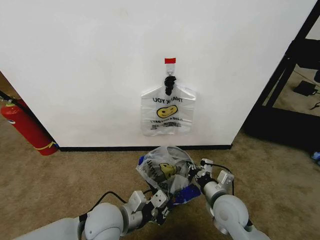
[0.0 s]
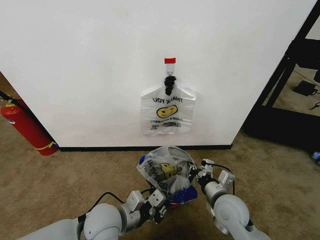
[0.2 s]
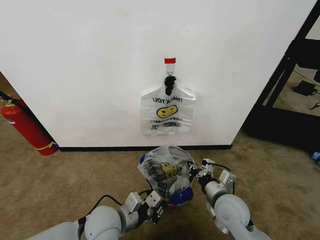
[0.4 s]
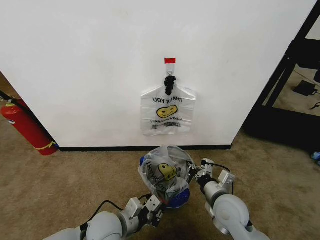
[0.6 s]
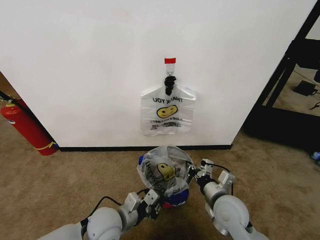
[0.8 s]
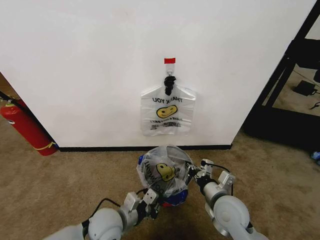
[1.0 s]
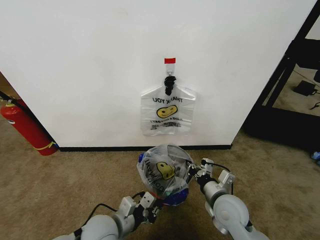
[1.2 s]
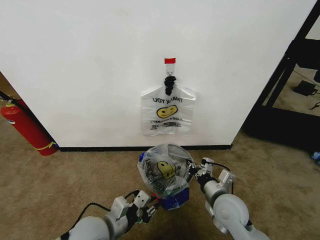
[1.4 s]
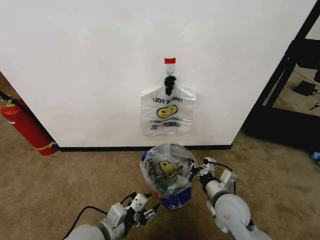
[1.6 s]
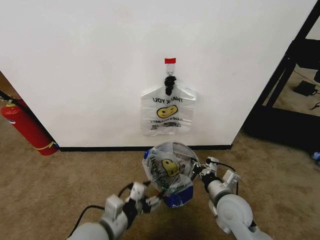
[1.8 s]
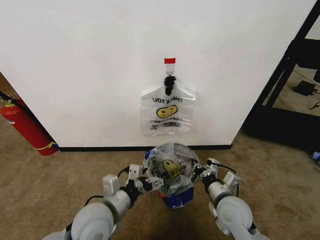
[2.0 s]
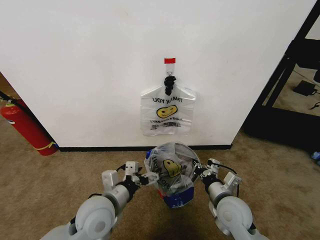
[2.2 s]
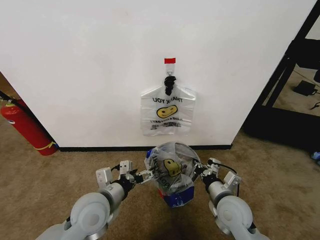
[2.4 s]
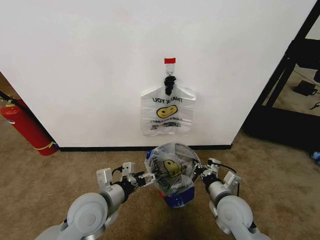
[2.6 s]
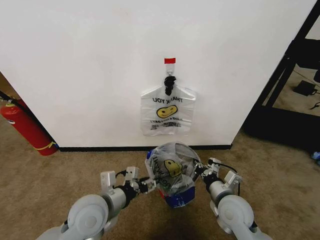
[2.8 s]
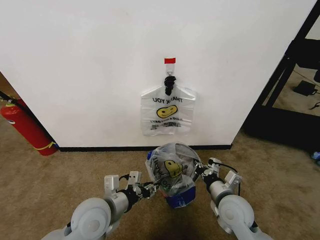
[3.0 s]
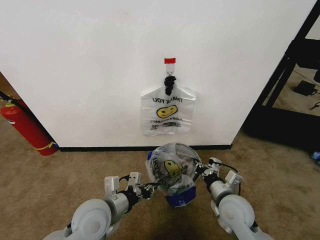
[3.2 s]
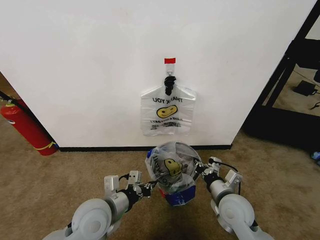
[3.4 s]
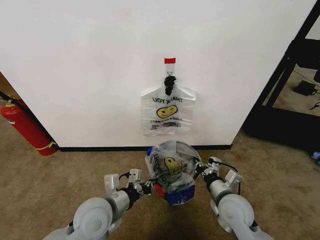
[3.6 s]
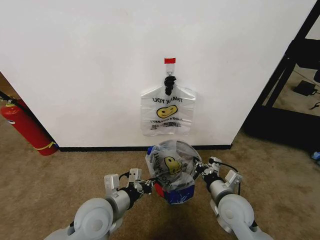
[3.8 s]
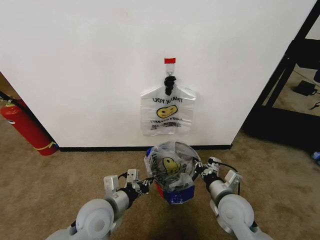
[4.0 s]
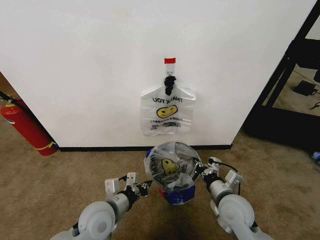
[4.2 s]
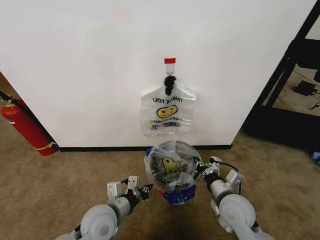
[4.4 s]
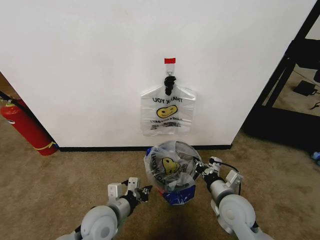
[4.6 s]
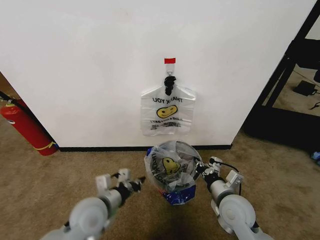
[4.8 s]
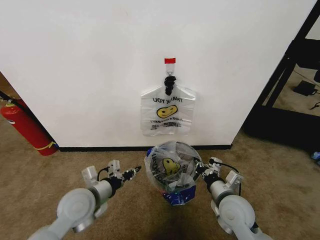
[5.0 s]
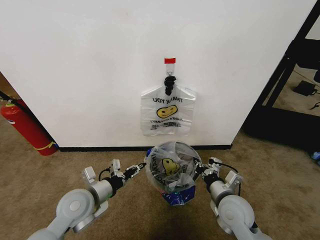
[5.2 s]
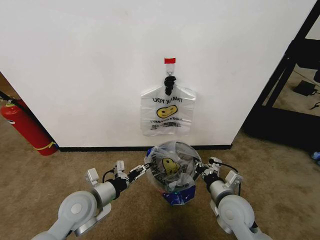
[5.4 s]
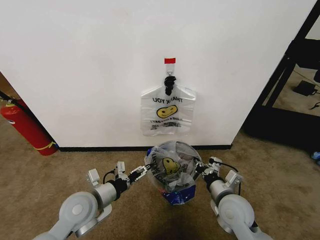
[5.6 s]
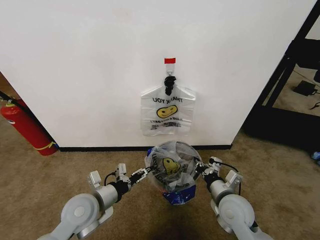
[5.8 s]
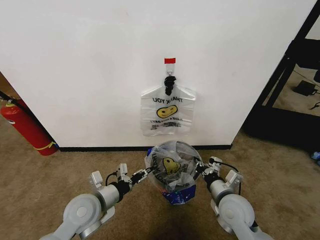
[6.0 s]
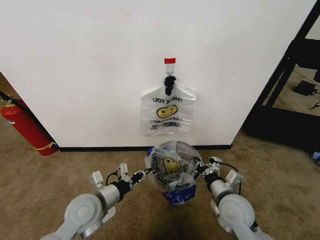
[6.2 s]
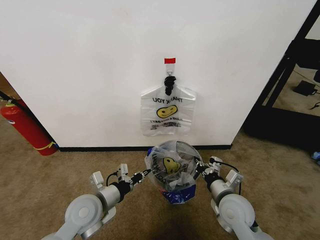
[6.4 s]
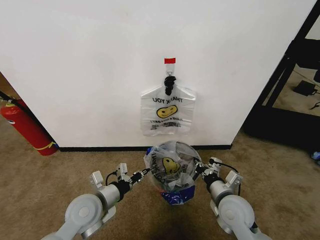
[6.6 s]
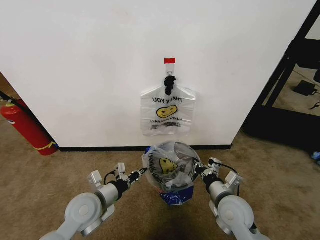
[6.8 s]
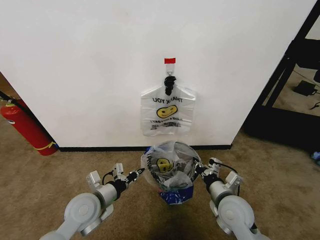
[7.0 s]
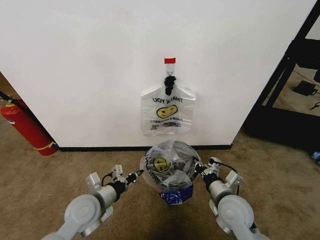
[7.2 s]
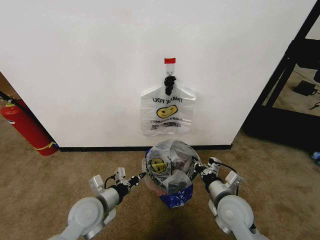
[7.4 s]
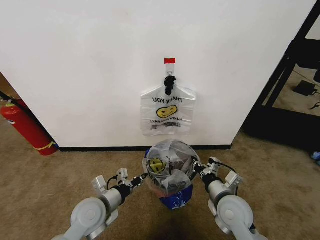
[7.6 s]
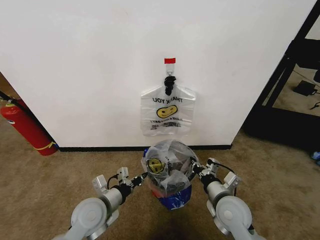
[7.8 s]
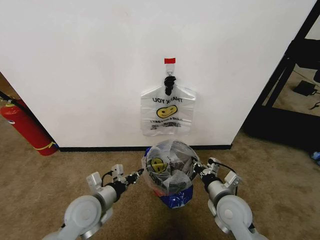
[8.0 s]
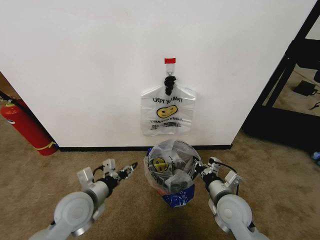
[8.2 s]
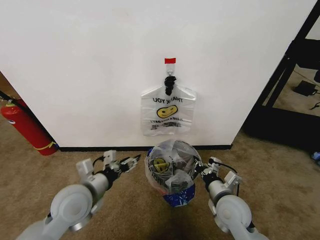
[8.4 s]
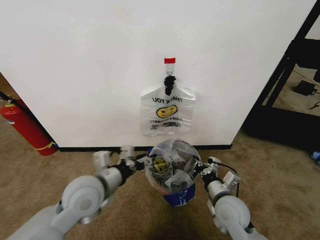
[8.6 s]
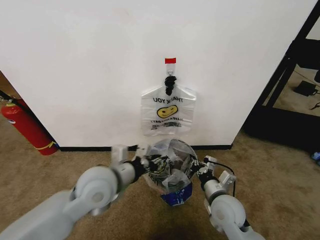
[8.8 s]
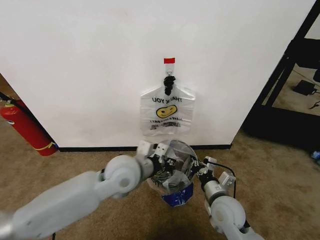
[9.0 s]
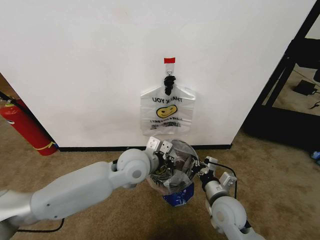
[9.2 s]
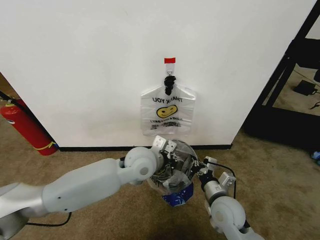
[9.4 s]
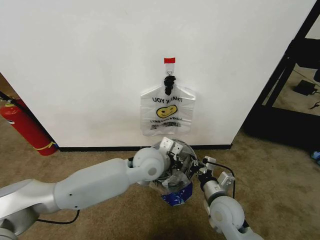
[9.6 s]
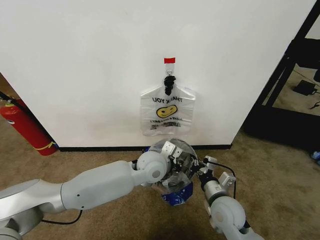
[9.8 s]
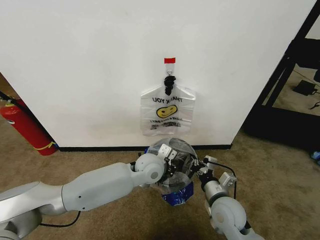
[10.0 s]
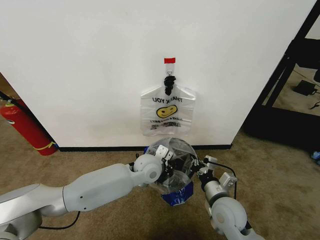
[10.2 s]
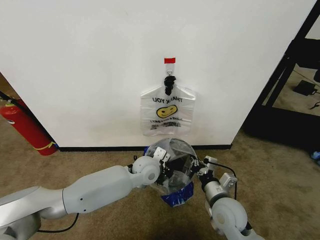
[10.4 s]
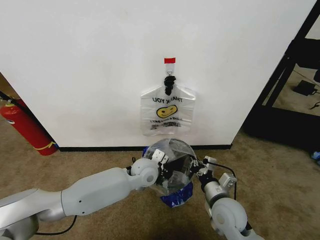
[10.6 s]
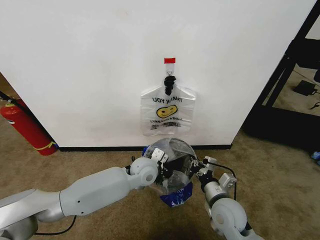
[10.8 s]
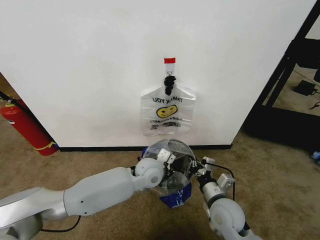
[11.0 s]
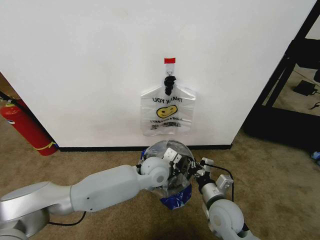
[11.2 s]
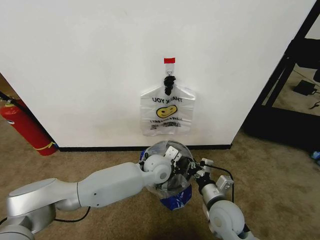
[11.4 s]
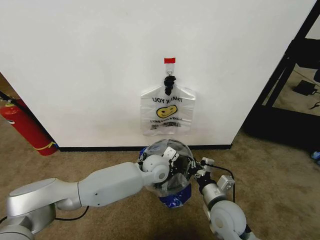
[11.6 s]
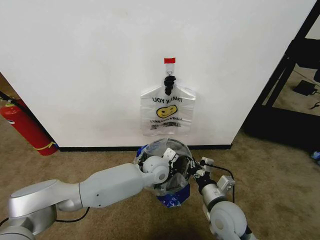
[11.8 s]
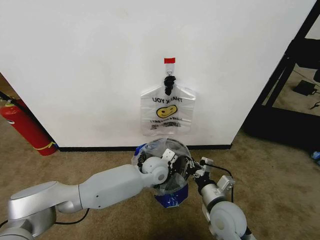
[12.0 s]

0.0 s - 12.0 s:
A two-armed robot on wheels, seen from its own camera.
Task of the whole recording: Pick up the garbage bag from the wall and place it over the trash bin.
0.0 s - 1.6 s: The left gripper is displaced backward by roughly 5 cm, and opens its fingers.
1.6 s - 3.0 s: The left gripper moves forward, about 5 cm, and opens, then closes once more.
3.0 s - 4.4 s: The left gripper moves downward, roughly 5 cm, and closes its fingers.
4.4 s - 6.0 s: The left gripper shifts by approximately 5 cm, and opens up.
6.0 s - 7.6 s: The left gripper closes its fingers.
7.6 s - 9.0 s: The left gripper is displaced upward, to the right and forward by roughly 15 cm, and opens, then closes once more.
9.0 s - 10.4 s: The left gripper heads downward, forward and to the right, covering approximately 15 cm.
10.4 s - 12.0 s: The grippers make only small movements.

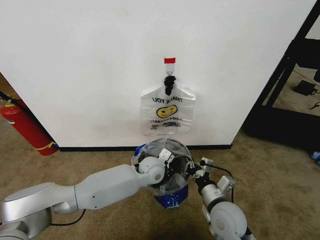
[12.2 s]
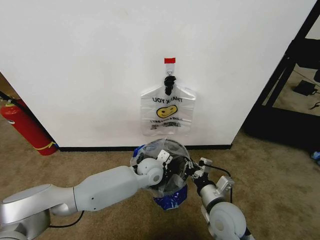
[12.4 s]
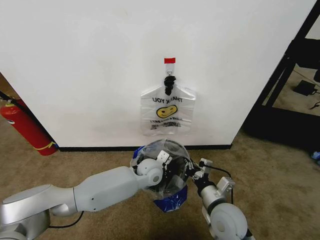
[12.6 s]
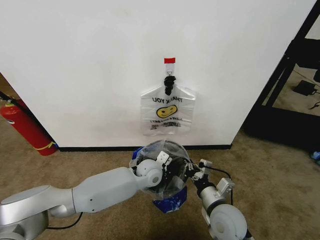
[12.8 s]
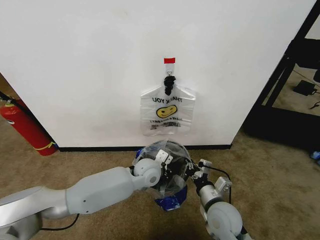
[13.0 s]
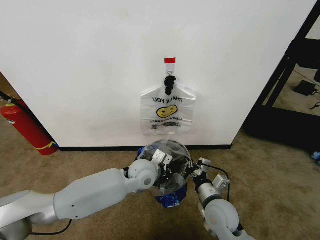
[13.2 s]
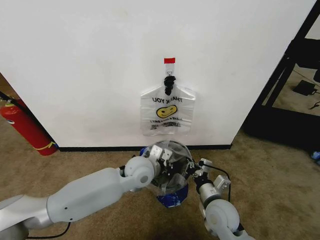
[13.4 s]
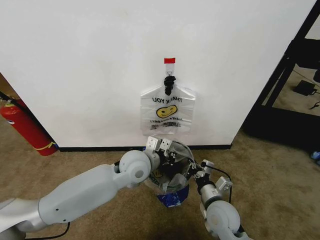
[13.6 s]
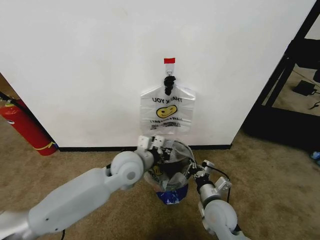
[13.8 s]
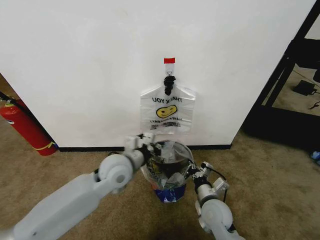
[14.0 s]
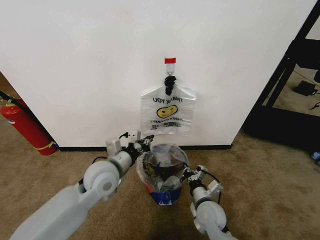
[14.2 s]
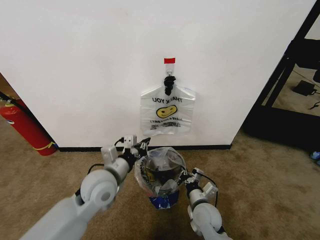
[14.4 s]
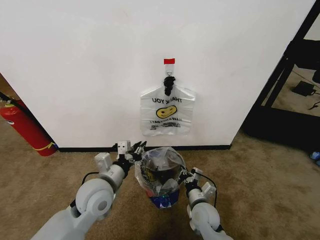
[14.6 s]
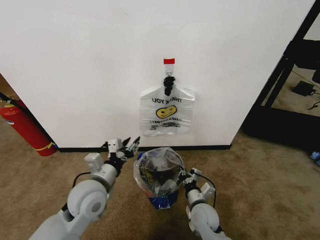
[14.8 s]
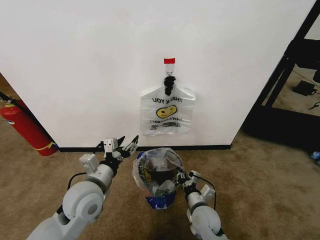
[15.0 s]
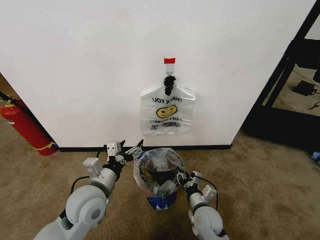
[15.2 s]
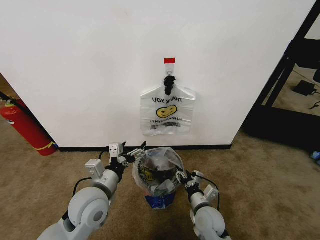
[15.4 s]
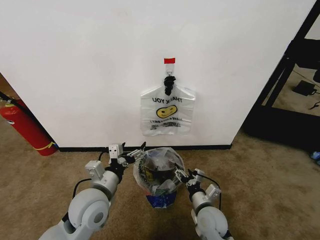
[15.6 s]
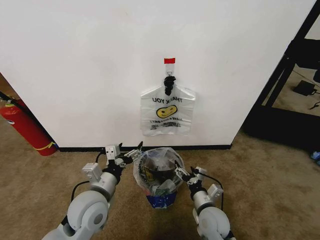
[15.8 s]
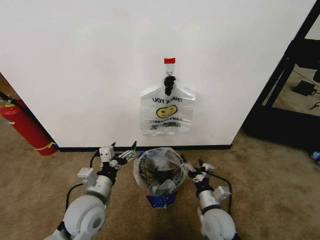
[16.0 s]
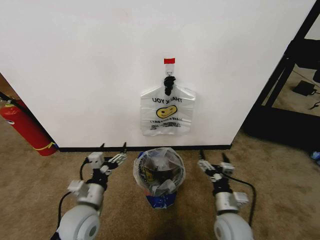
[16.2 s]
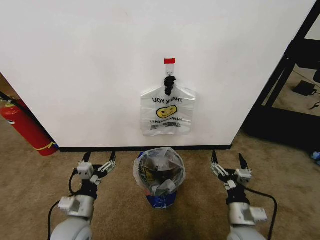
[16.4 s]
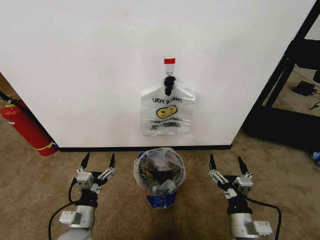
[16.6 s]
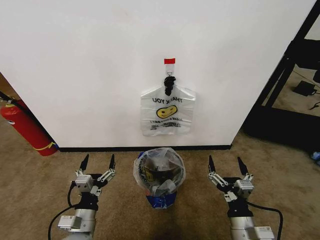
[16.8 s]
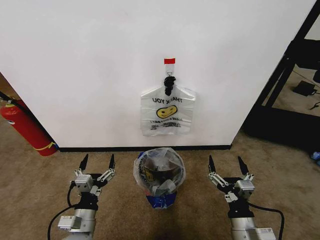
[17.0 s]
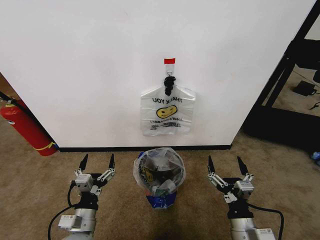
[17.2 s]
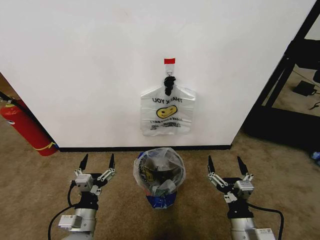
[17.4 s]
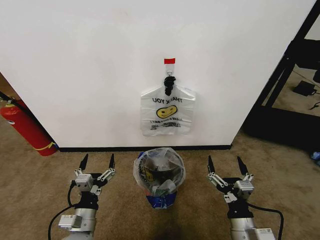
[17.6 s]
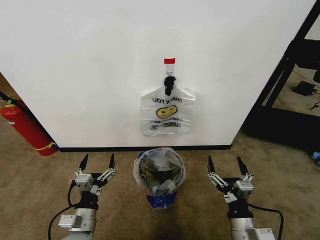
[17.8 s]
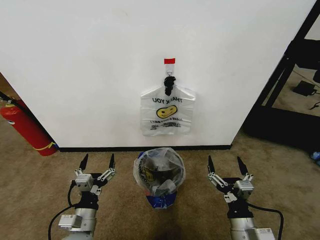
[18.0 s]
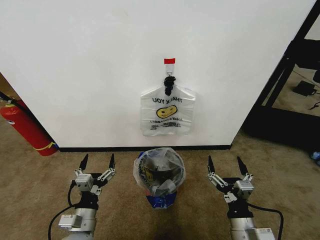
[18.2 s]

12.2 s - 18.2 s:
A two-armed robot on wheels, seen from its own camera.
Task of the whole recording: Pick up the garbage bag from the wall and place it over the trash bin.
12.2 s - 13.8 s: The left gripper heads upward and to the left, covering some 10 cm.
13.8 s - 15.2 s: The left gripper moves backward and to the left, approximately 15 cm, and opens up. The right gripper moves downward, some 5 cm, and opens its fingers.
15.2 s - 16.6 s: The left gripper goes approximately 15 cm downward, backward and to the left; the right gripper heads backward, upward and to the right, covering some 15 cm, and opens up.
16.6 s - 18.2 s: There are only small adjustments of the grippers.

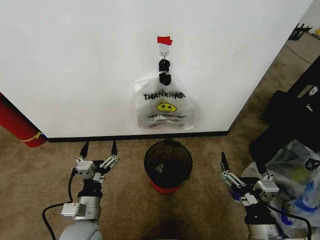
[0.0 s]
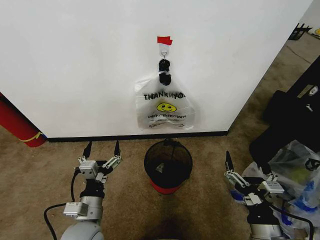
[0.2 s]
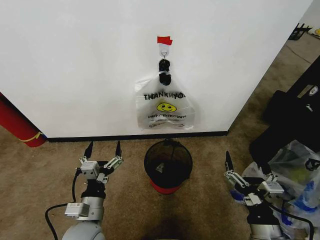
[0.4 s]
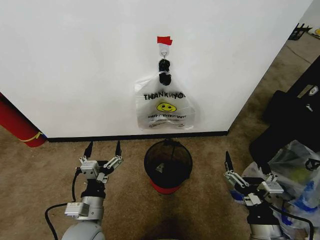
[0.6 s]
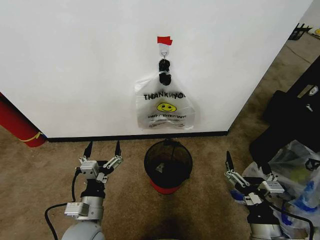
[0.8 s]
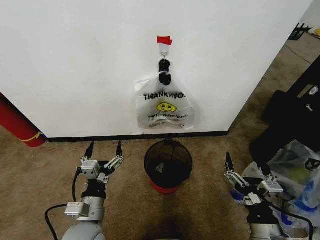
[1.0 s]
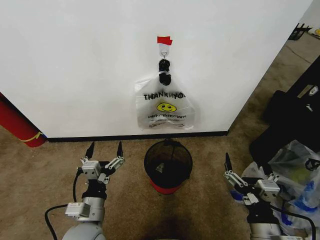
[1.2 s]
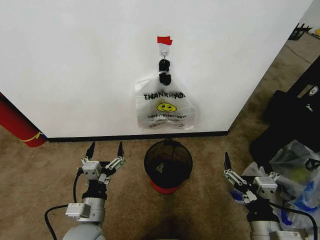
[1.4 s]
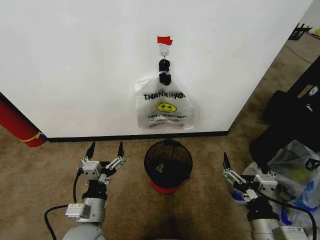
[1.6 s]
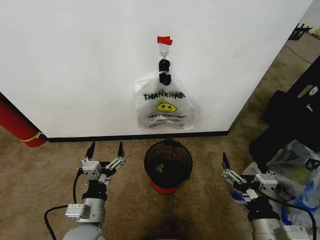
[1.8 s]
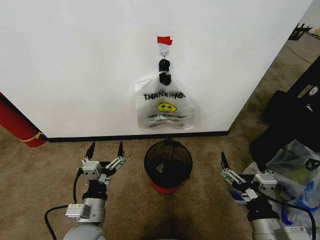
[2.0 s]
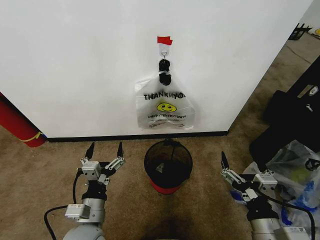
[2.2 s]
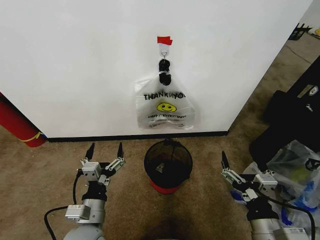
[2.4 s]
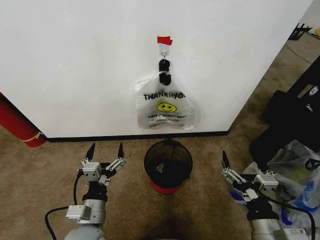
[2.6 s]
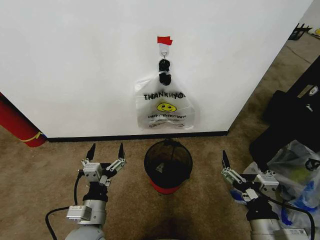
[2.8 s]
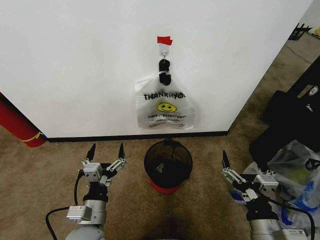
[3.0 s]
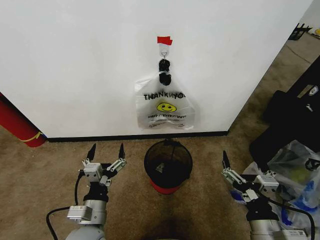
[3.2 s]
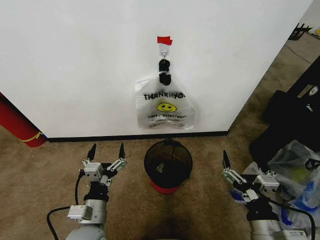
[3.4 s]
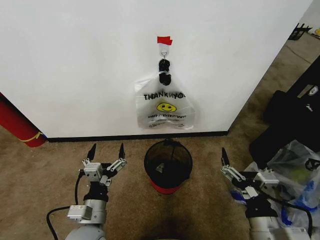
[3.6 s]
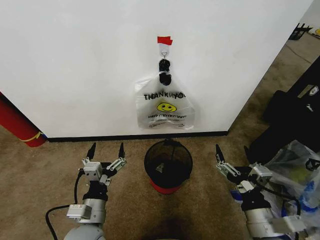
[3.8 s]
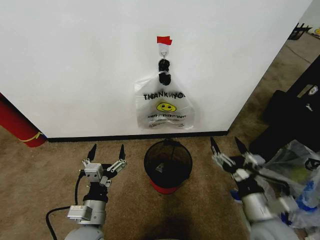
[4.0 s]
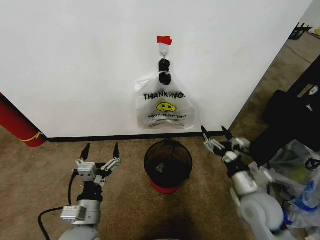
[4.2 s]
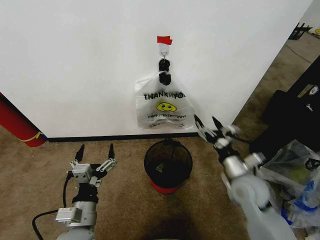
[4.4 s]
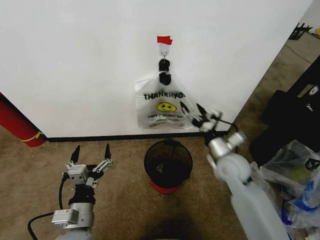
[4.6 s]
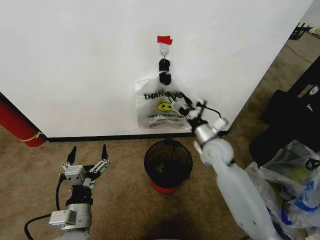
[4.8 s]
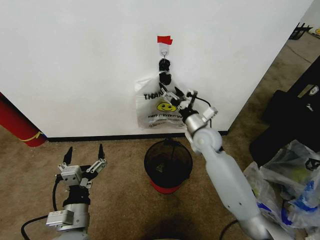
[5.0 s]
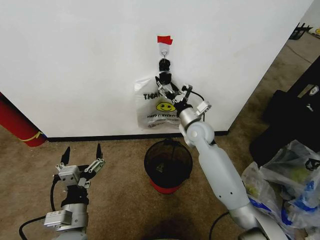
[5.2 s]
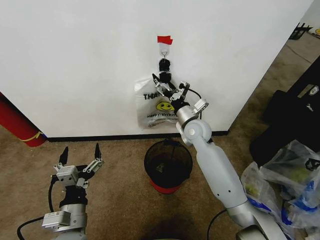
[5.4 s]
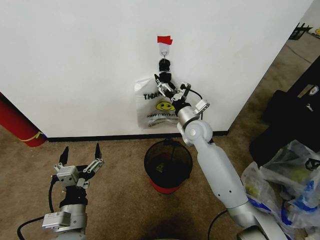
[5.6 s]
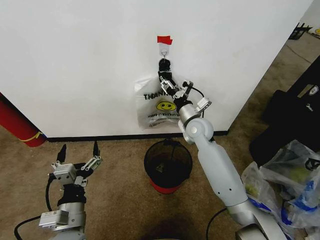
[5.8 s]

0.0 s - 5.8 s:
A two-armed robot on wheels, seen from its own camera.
Task of the whole recording: Pick up the garbage bag from the wall and place it over the trash bin.
1.4 s - 2.8 s: There are only small adjustments of the grippers.
2.8 s - 4.4 s: The right gripper travels forward by roughly 20 cm.
4.4 s - 5.8 s: The right gripper shifts about 20 cm forward and to the left, and closes.
